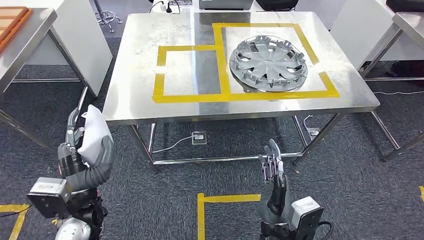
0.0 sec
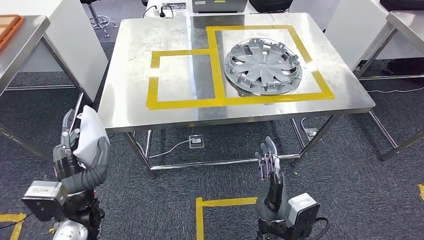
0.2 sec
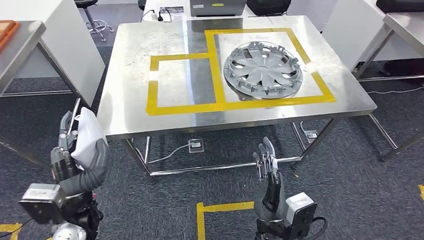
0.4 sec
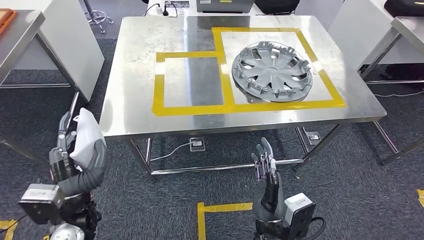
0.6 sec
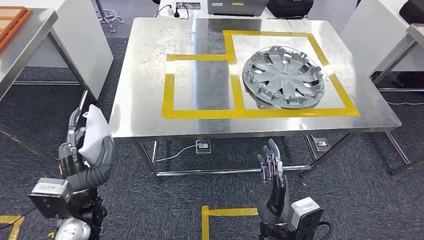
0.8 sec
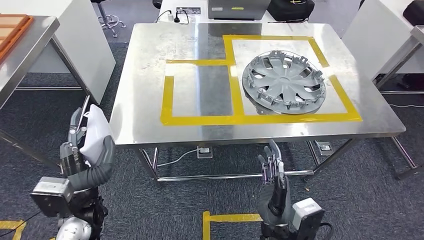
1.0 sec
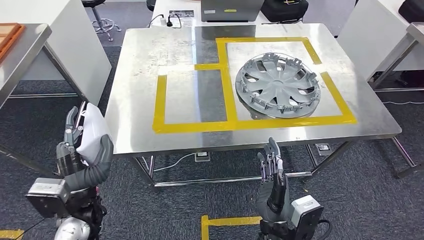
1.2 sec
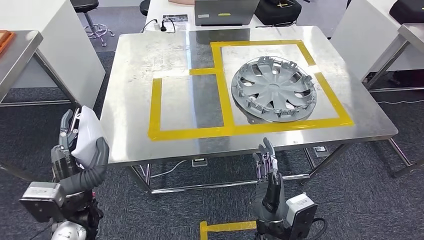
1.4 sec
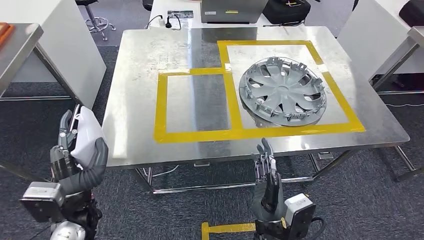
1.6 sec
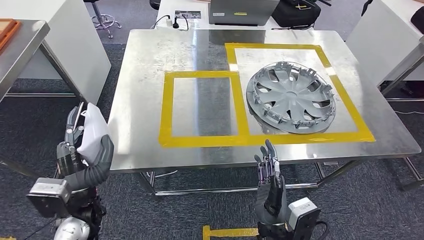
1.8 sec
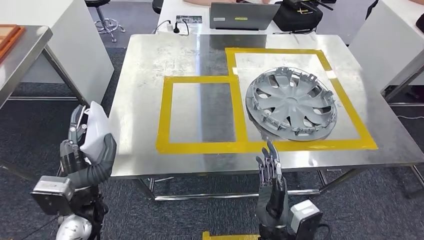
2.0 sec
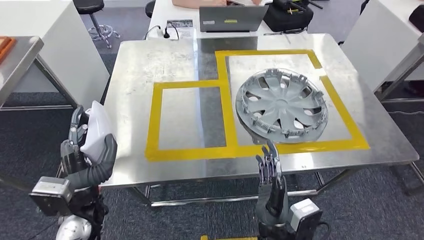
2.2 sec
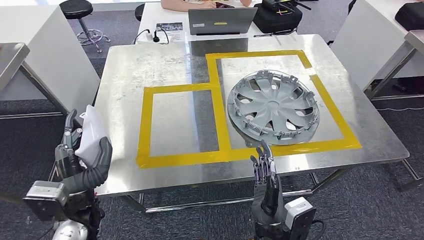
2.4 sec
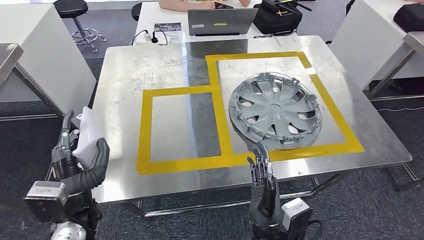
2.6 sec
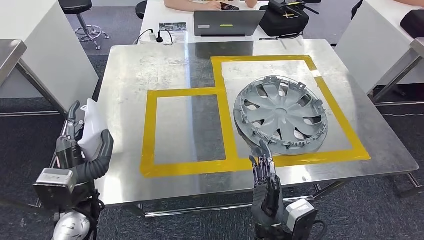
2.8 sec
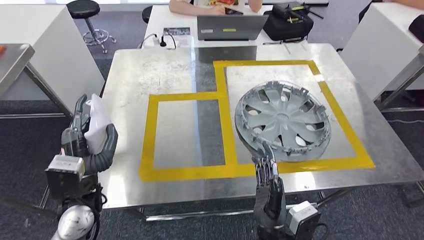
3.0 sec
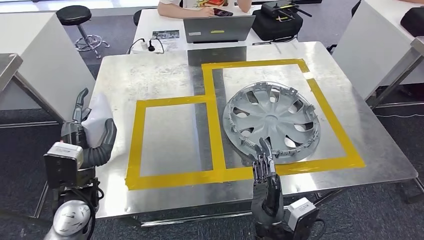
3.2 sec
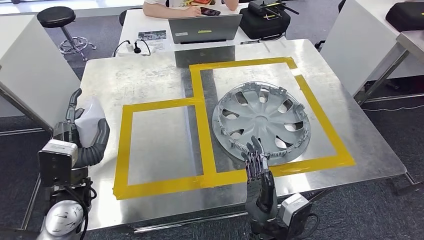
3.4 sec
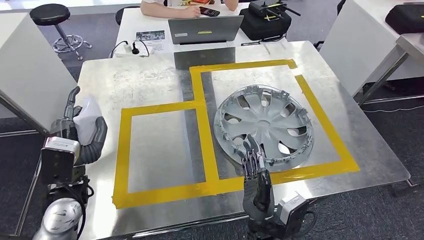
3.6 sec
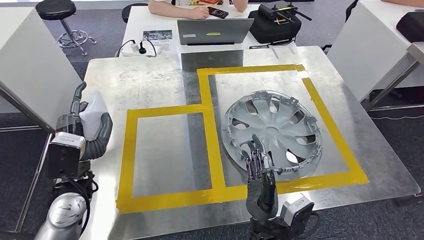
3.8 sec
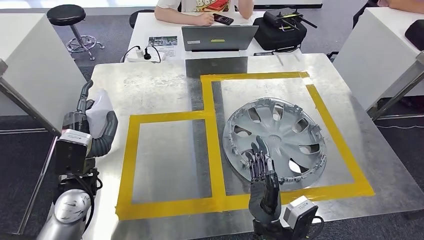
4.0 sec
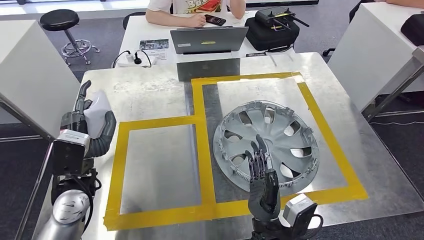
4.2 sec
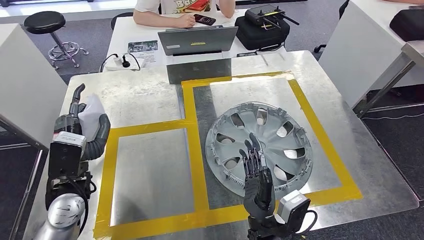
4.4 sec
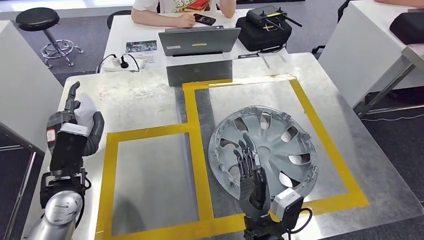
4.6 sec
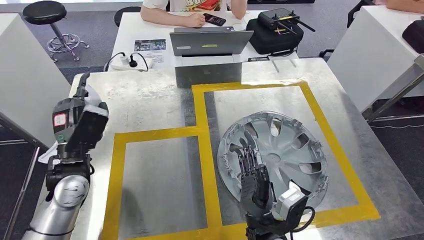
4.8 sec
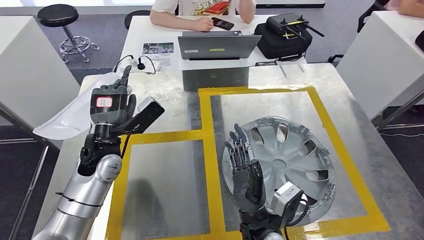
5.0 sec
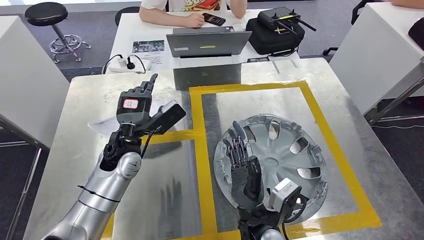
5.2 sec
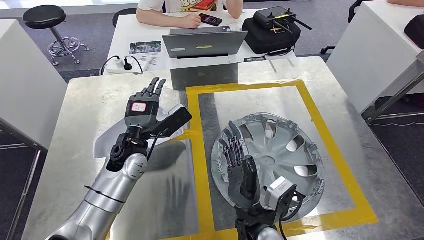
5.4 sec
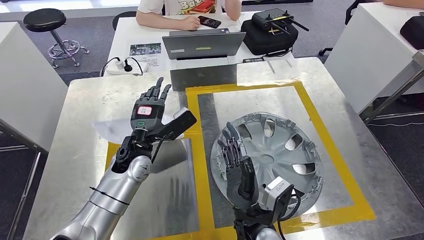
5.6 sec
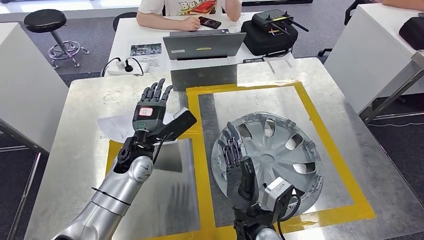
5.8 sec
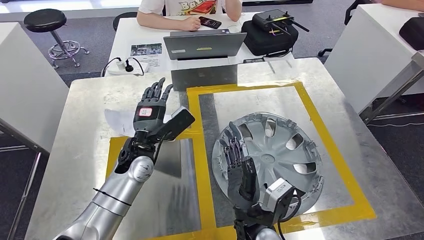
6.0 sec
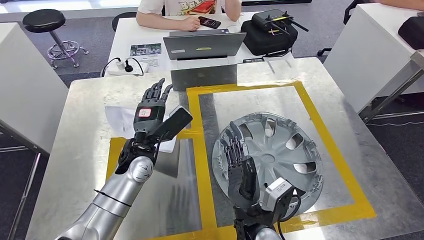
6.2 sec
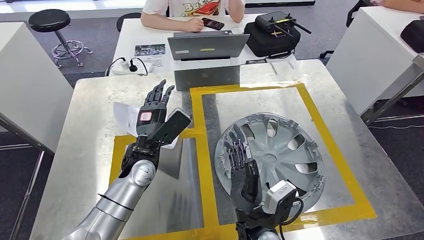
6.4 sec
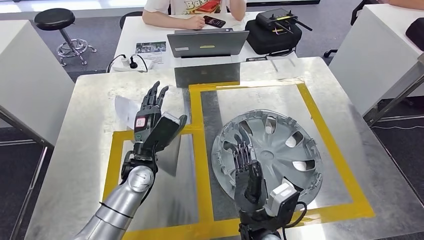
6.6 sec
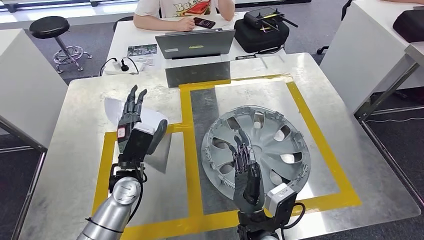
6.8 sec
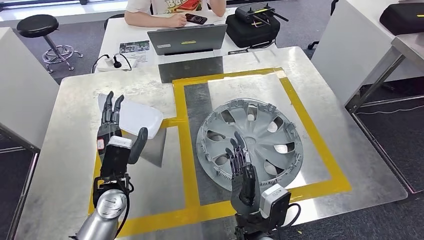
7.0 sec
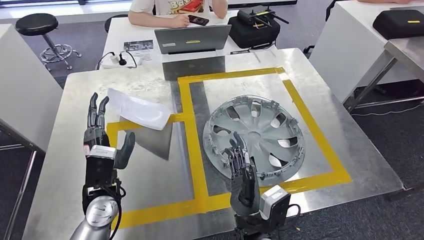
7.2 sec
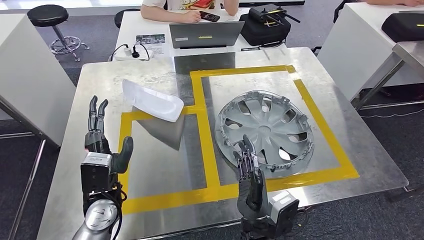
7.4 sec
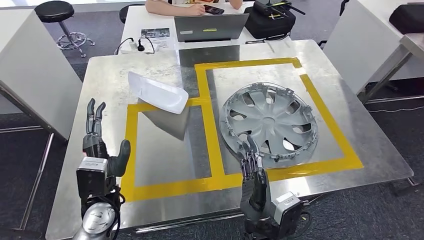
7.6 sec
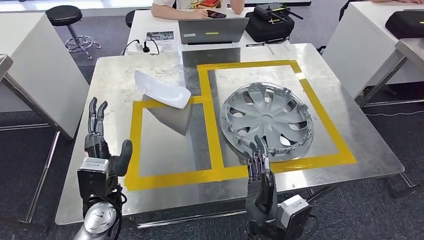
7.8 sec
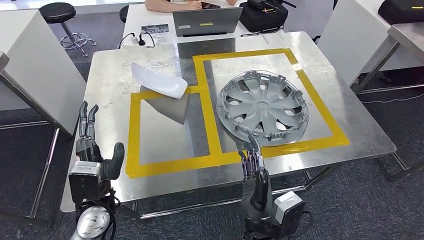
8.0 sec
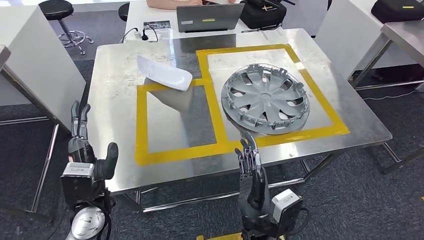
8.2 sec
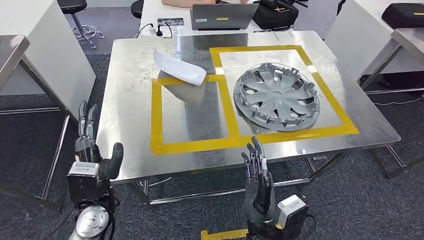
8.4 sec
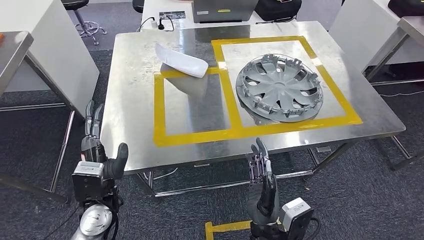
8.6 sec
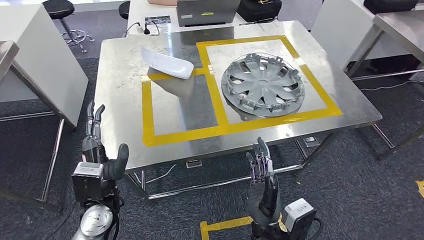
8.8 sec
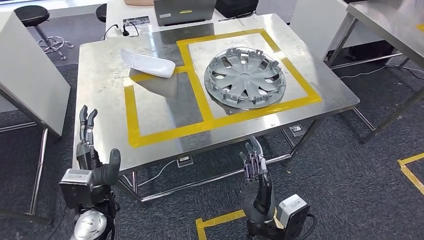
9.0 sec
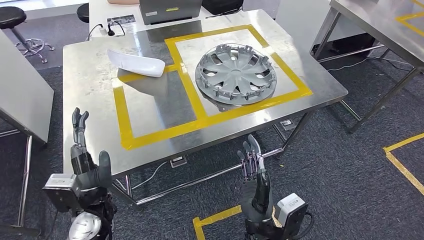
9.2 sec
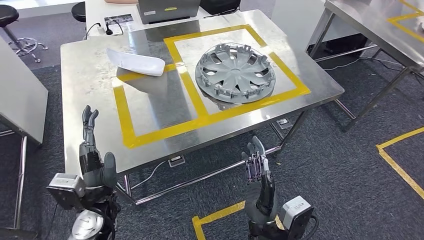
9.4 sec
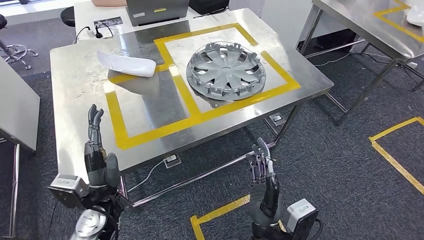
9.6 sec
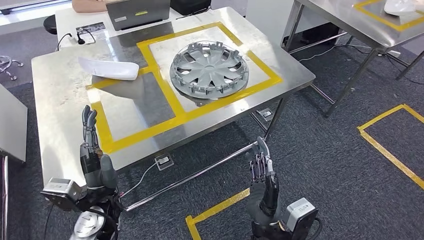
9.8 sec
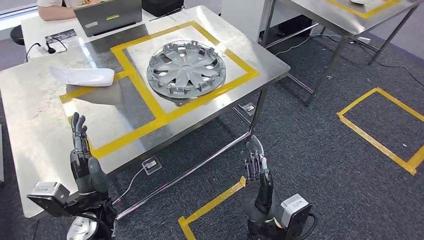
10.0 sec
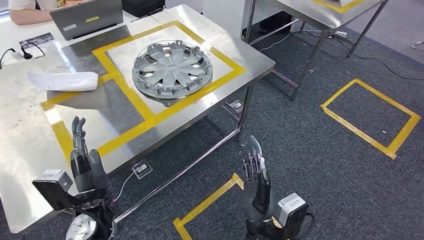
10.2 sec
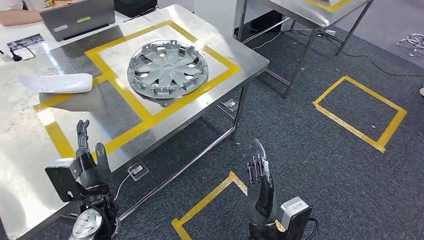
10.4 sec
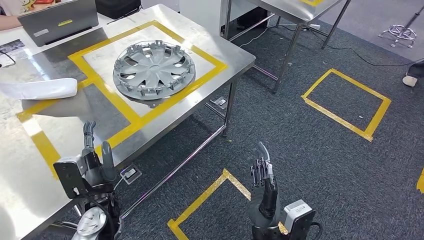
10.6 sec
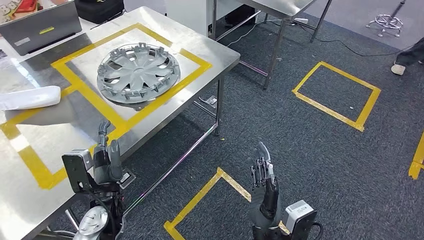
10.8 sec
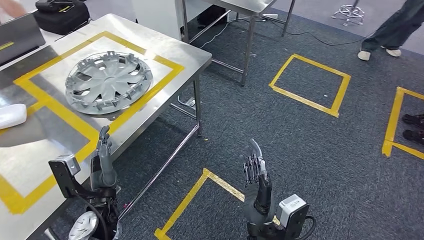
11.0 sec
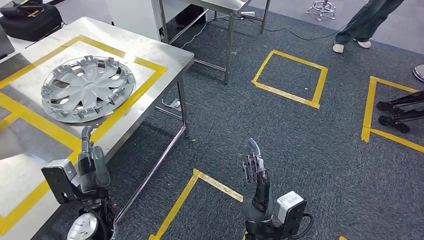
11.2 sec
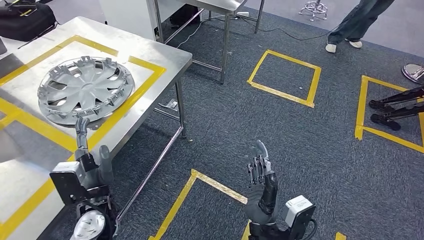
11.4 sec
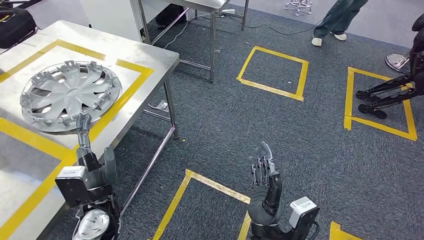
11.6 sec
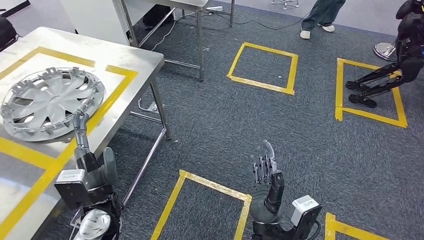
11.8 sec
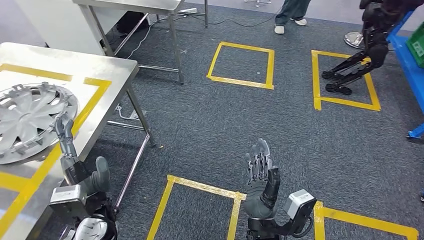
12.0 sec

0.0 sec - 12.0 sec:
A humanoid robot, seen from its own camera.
Step, 3.4 sec - 7.2 sec: Insert the small component into the corresponding slot on the workbench.

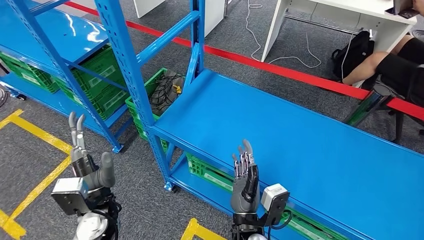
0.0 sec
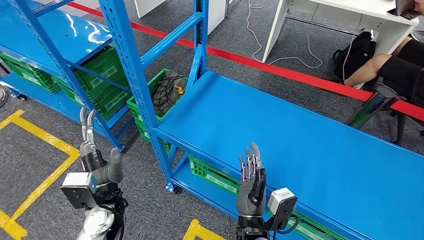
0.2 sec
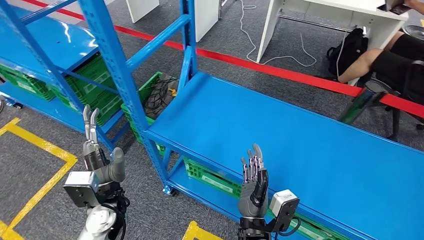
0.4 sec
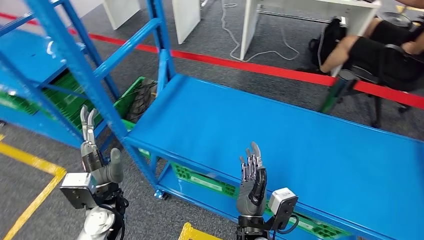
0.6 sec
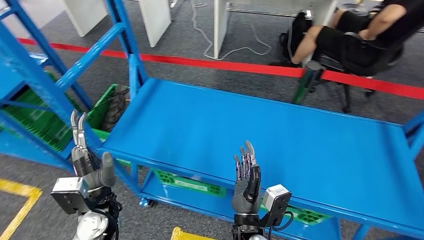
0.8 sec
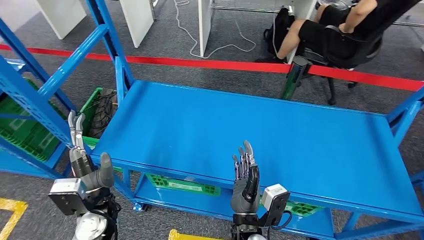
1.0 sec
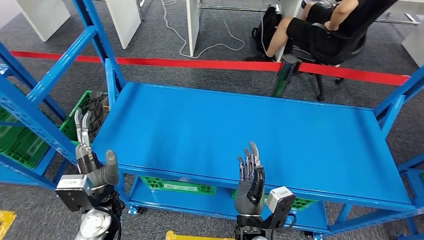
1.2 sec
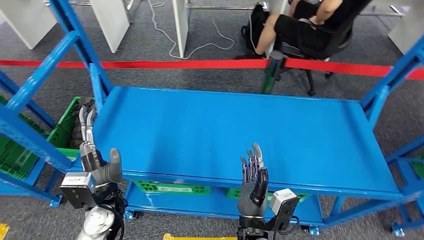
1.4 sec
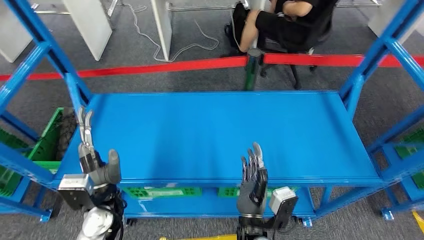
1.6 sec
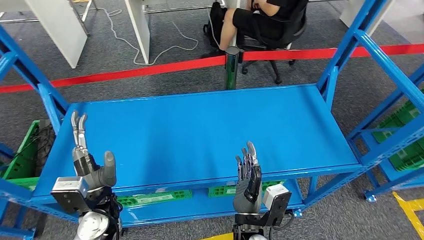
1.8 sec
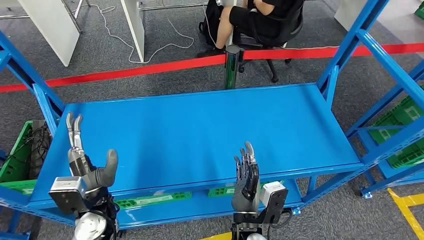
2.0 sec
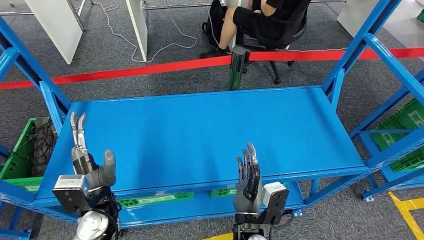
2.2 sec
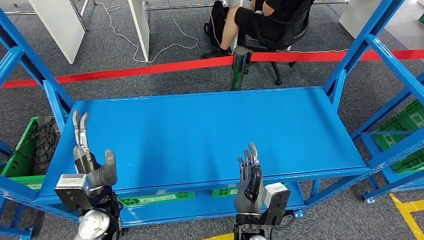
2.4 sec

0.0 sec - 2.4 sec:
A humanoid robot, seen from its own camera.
Step, 0.0 sec - 2.4 sec: Return to the initial position at the workbench.
